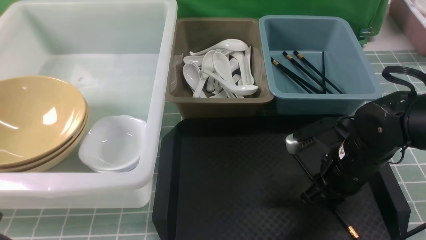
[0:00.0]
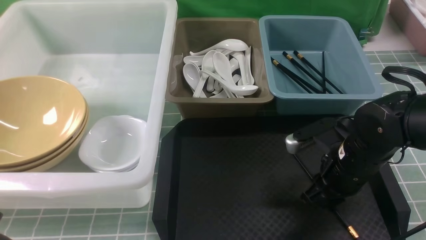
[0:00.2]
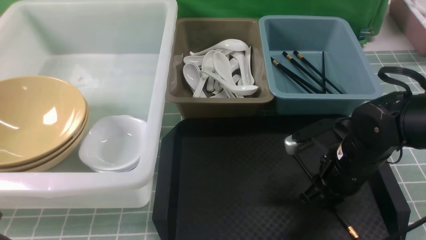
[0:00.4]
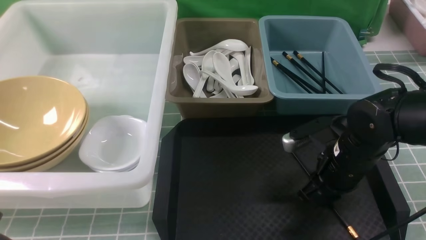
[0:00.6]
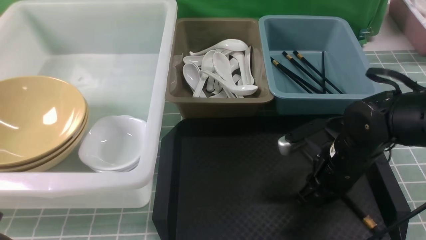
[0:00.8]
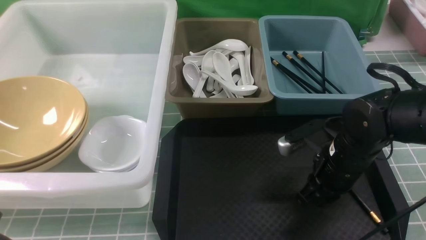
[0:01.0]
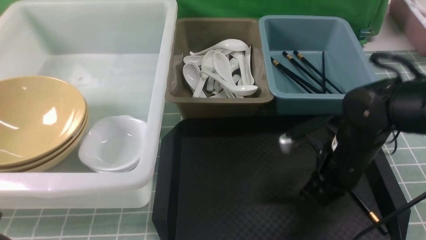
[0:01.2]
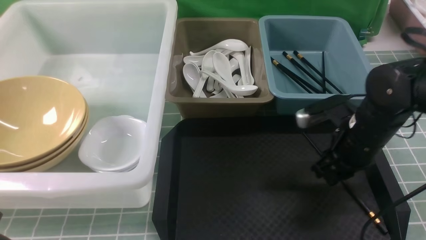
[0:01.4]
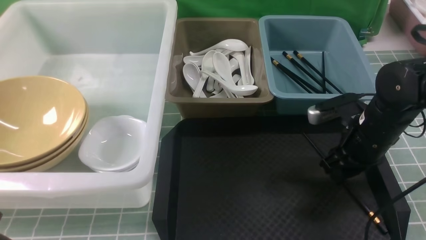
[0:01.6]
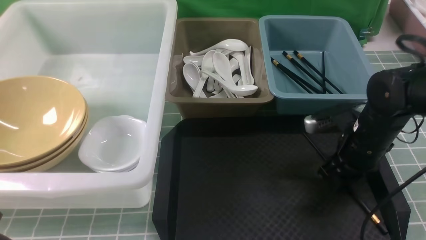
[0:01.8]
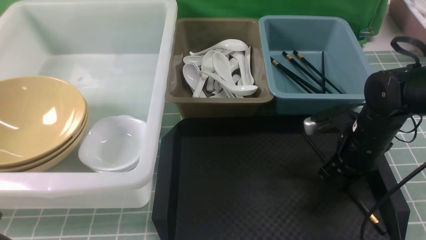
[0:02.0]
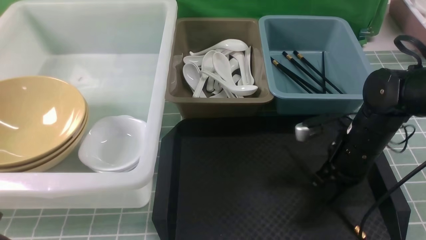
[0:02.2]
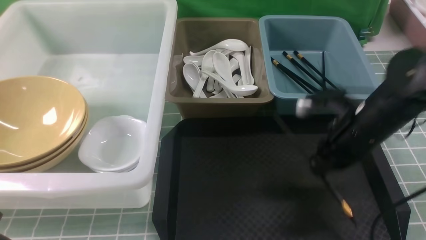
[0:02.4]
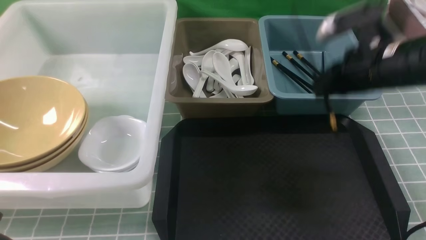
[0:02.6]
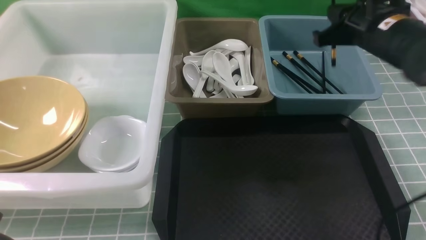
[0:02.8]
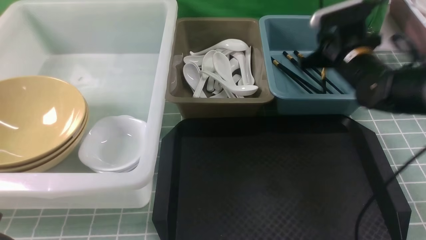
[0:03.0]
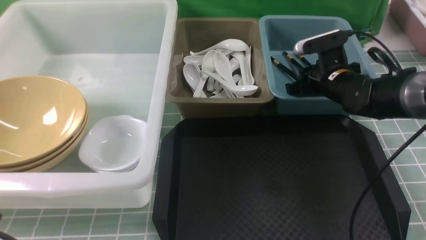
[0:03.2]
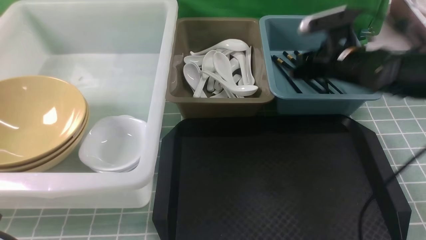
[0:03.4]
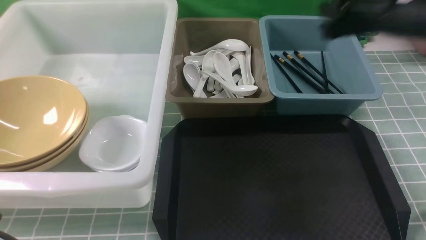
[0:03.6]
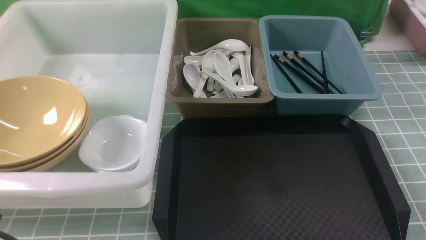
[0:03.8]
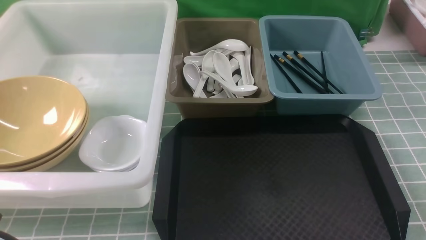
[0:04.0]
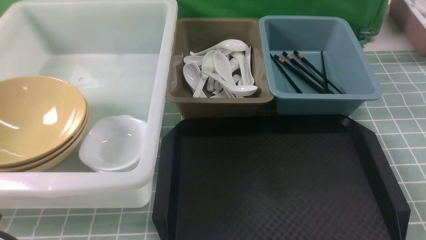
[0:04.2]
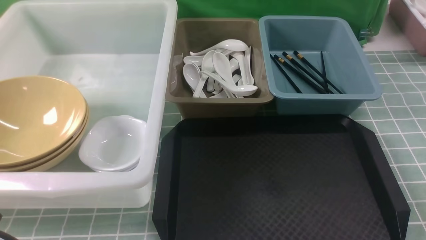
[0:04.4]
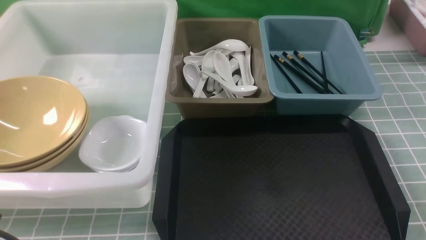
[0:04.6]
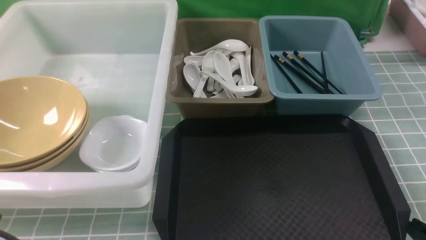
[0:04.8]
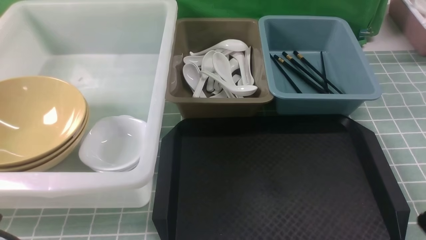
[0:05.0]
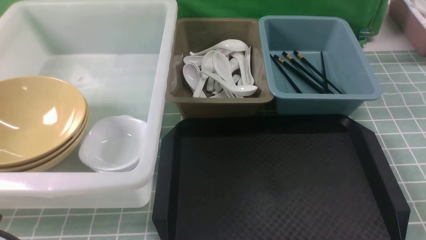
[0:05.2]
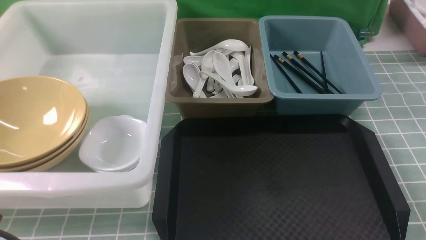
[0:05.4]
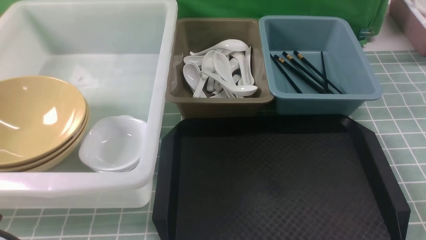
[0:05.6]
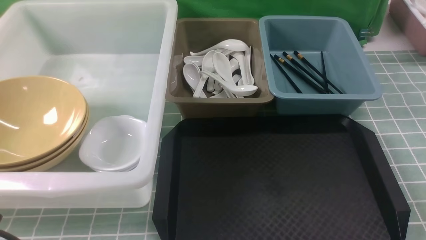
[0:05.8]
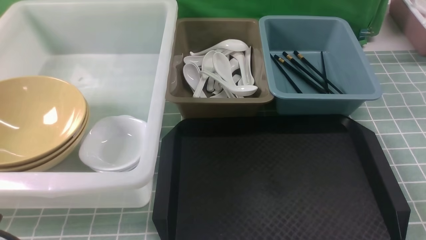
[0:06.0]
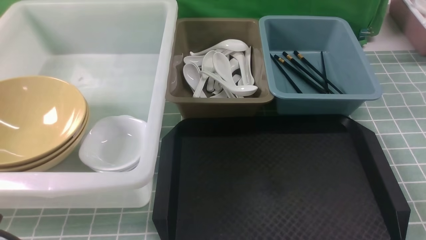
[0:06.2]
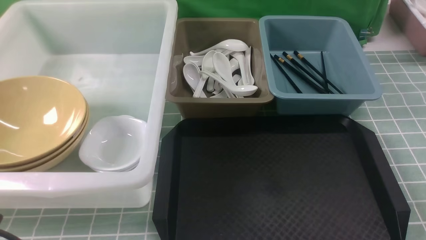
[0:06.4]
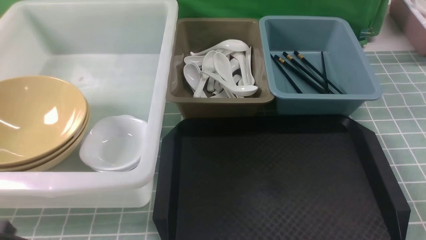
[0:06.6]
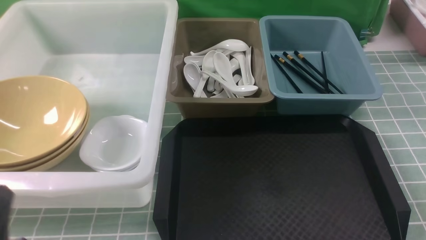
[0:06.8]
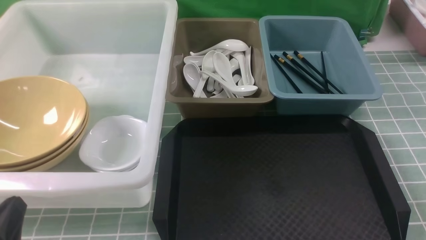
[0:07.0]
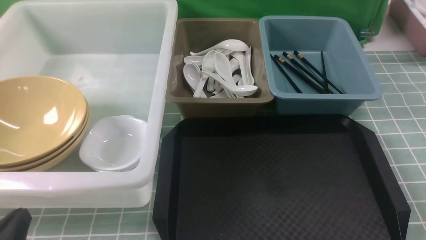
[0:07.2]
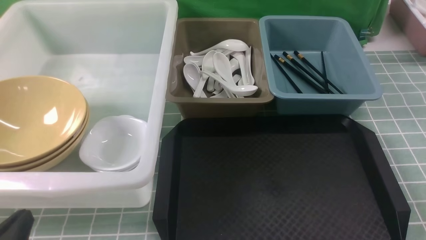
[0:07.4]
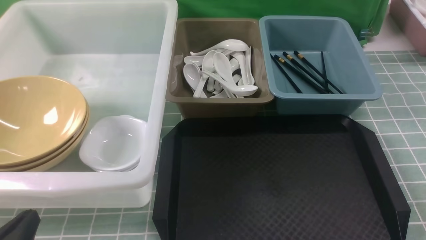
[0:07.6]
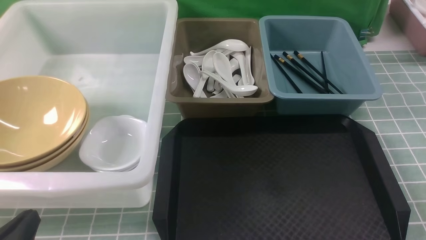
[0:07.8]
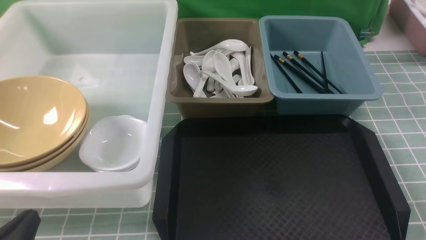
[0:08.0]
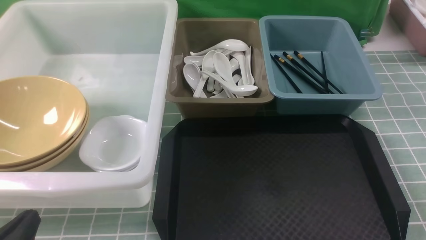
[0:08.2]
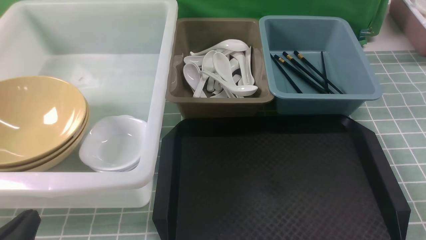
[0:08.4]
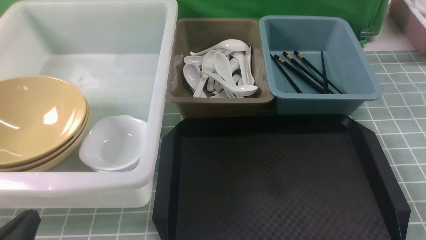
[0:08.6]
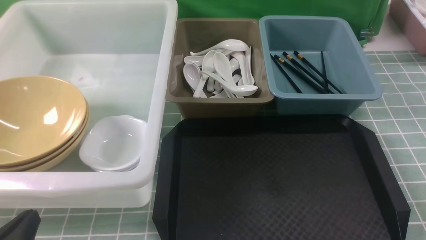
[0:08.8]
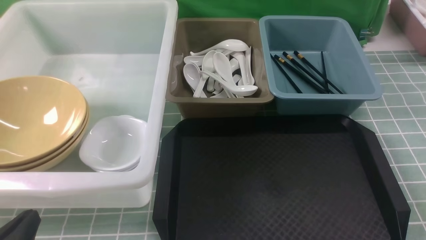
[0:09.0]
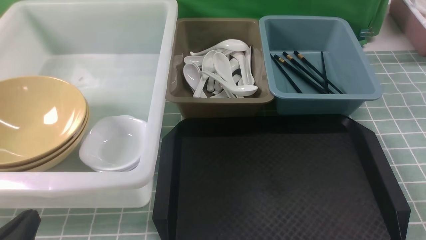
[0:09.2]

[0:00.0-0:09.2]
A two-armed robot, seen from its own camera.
Task of the whole recording: on blue table put chopsticks spoon bowls plates into blue grey white boxes.
Step, 0:00.0 to 0:02.6: use the right arm to grab a chopstick.
Step, 0:02.8 to 0:03.4: use the right arm to put a chopstick into the small storage box on the right.
0:00.0 to 0:01.6: The right gripper ends up about 5 cm from where it was.
0:01.6 to 0:03.0: The right gripper goes approximately 10 cm forward, and closes its fingers.
0:03.0 to 0:04.6: The right gripper is displaced backward by approximately 35 cm.
0:06.2 to 0:07.6: The left gripper moves downward, some 10 cm.
0:07.6 to 0:09.2: Both grippers stay put.
